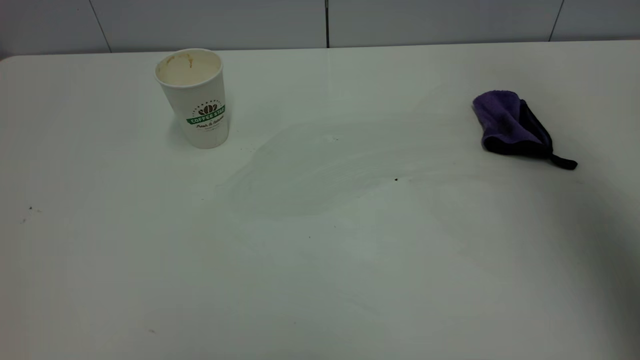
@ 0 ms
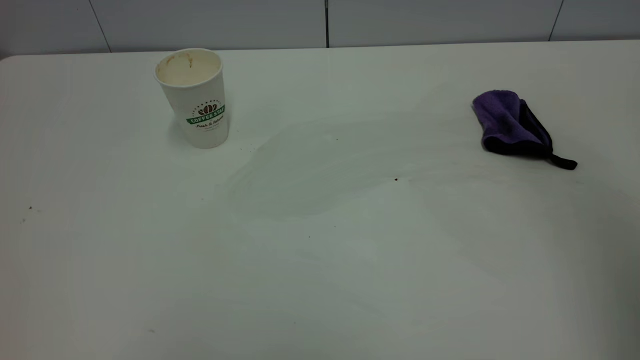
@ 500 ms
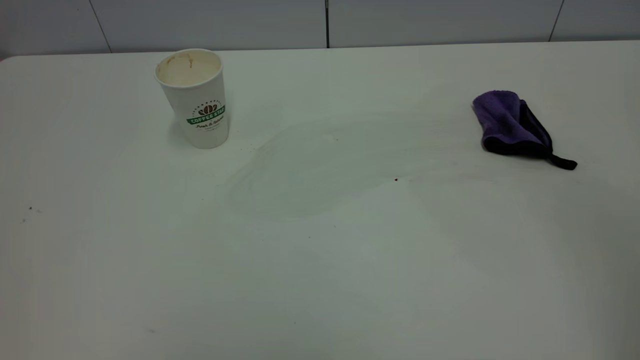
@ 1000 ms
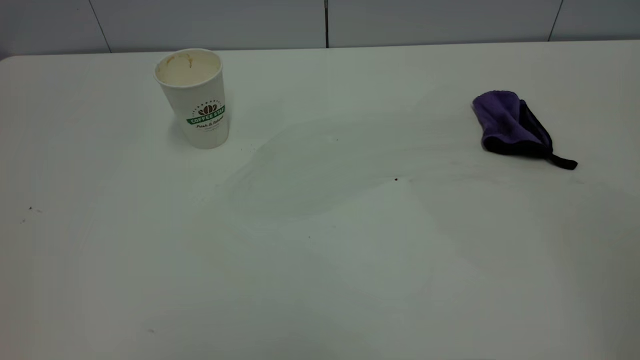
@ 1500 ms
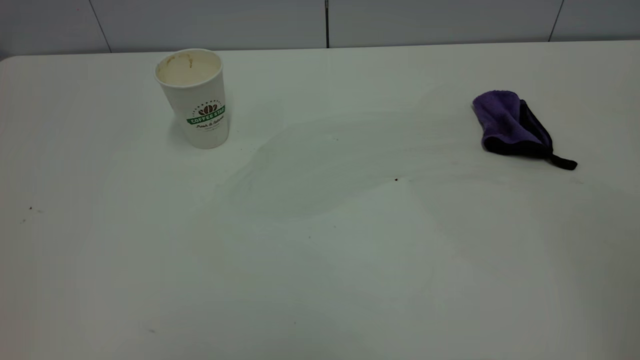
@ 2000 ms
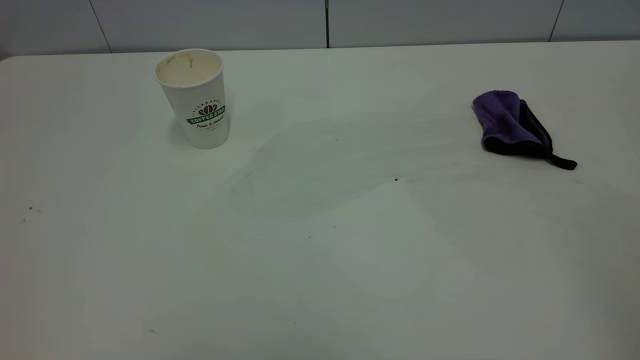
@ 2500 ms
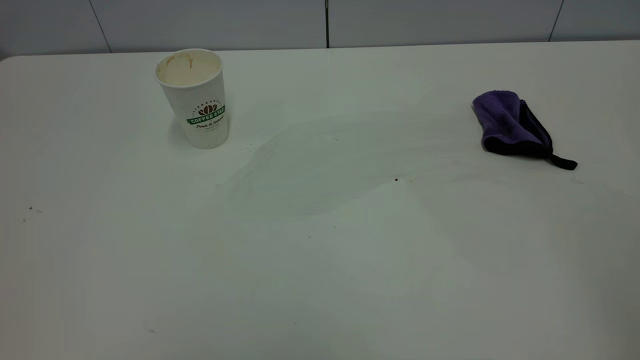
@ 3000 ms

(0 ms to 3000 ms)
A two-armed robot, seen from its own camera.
Task of the whole recording: the left gripper pick up the fallen cup and place it upright, the right gripper grasp the purple rag and wipe the coffee stain on the table, the right gripper put the purple rag back in its original position.
0 ms - 1500 ms: The right gripper heads backward and downward, covering approximately 25 cm.
